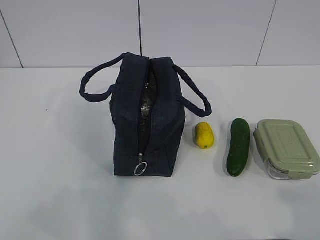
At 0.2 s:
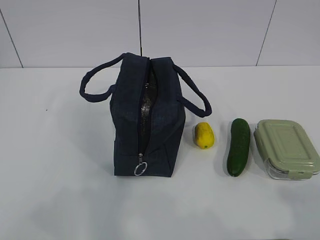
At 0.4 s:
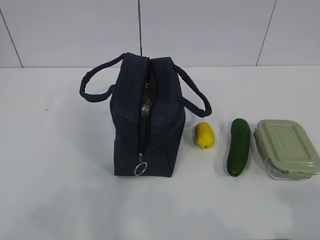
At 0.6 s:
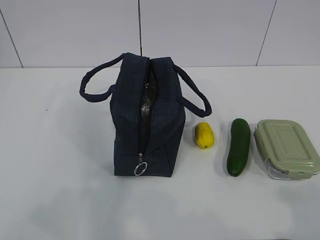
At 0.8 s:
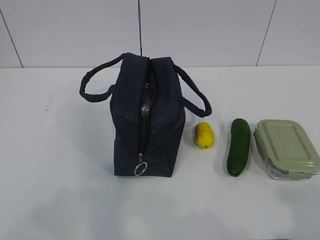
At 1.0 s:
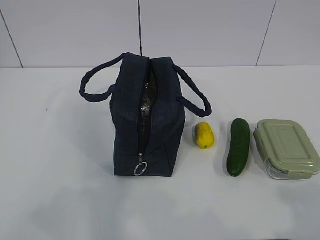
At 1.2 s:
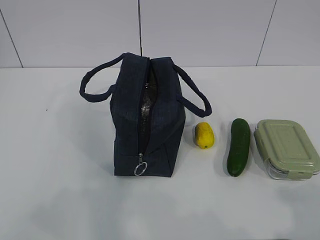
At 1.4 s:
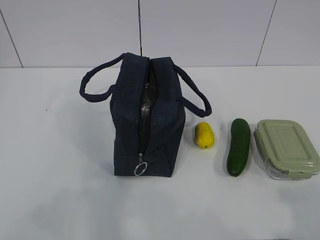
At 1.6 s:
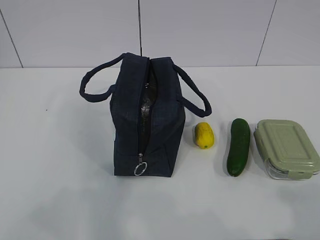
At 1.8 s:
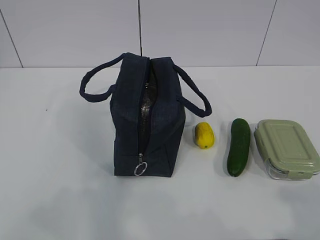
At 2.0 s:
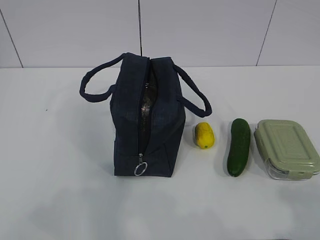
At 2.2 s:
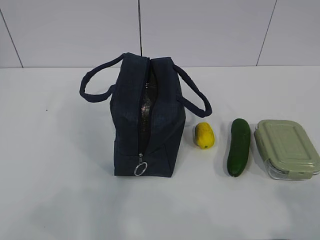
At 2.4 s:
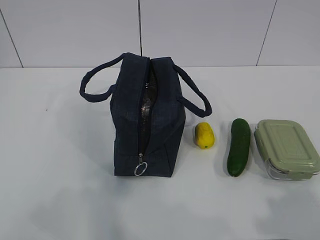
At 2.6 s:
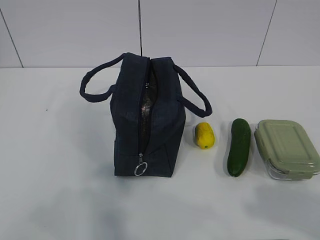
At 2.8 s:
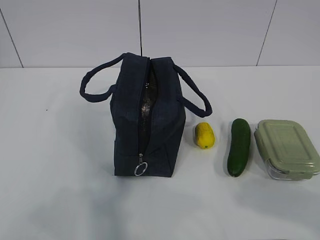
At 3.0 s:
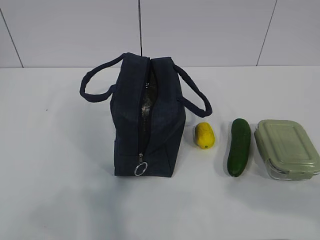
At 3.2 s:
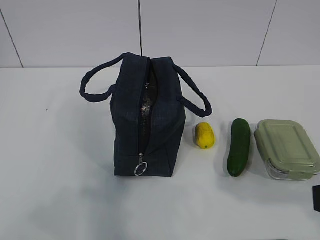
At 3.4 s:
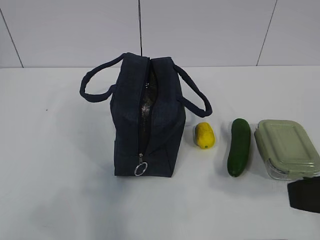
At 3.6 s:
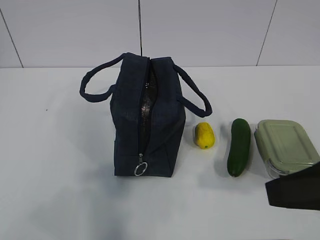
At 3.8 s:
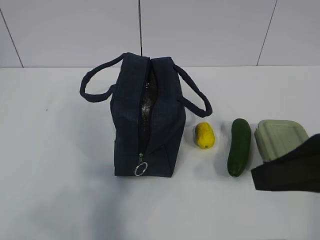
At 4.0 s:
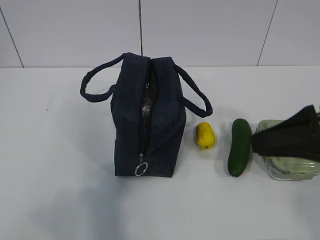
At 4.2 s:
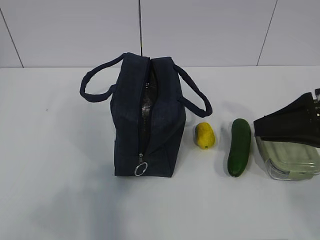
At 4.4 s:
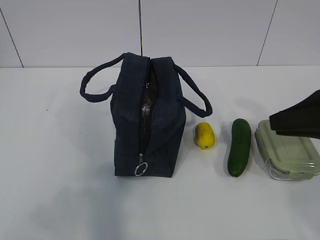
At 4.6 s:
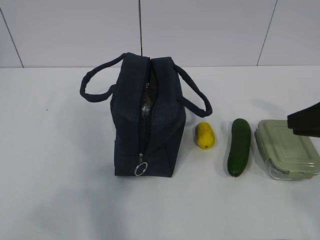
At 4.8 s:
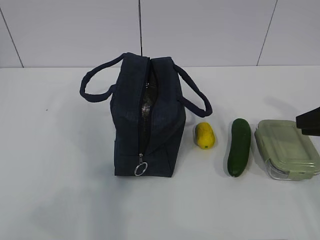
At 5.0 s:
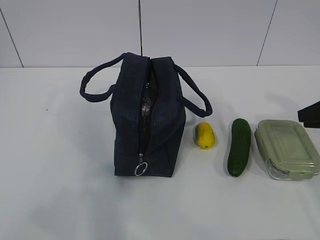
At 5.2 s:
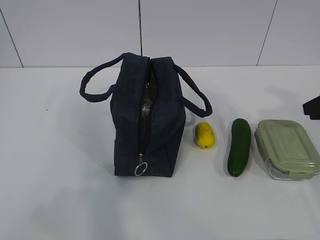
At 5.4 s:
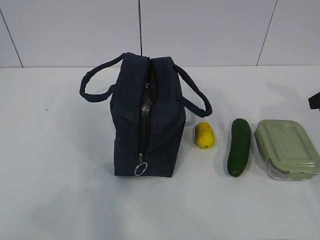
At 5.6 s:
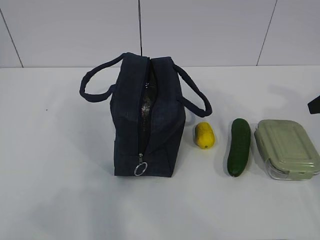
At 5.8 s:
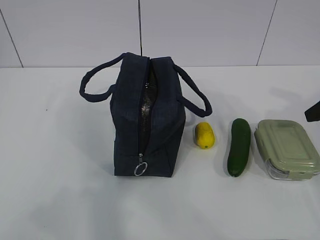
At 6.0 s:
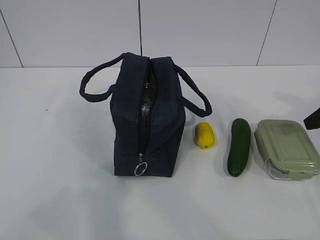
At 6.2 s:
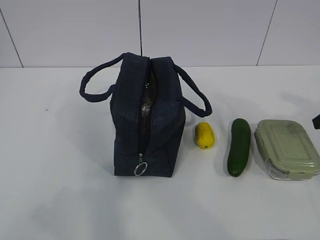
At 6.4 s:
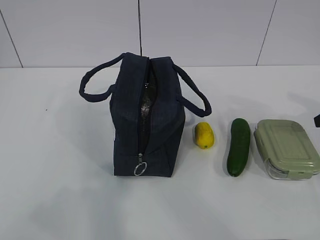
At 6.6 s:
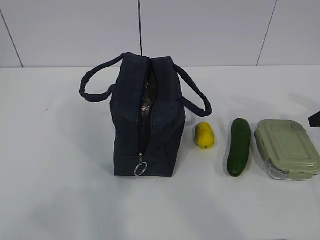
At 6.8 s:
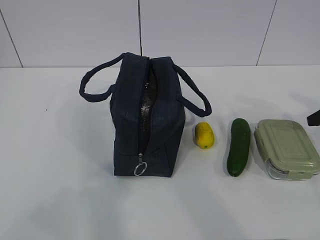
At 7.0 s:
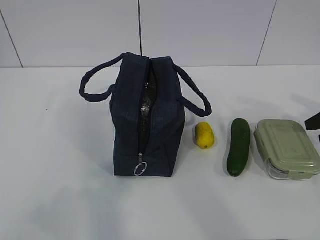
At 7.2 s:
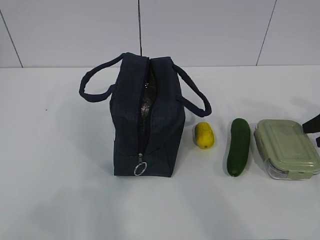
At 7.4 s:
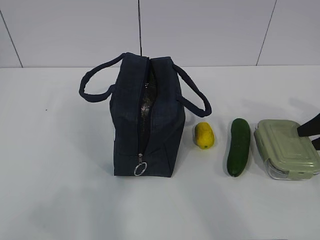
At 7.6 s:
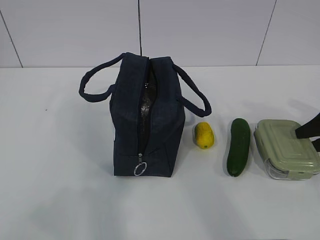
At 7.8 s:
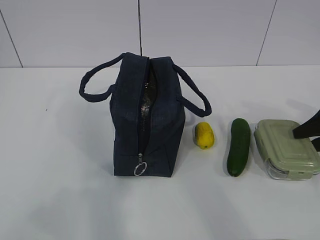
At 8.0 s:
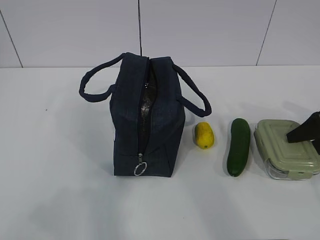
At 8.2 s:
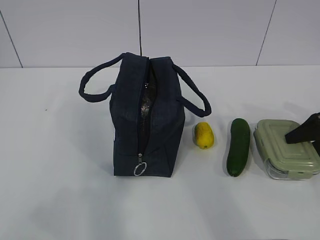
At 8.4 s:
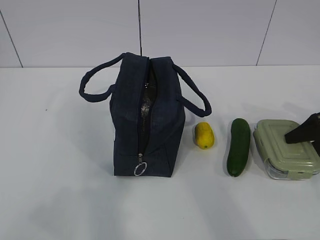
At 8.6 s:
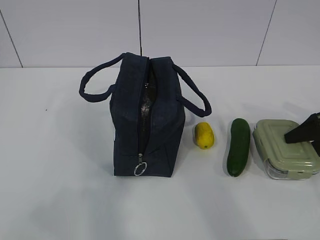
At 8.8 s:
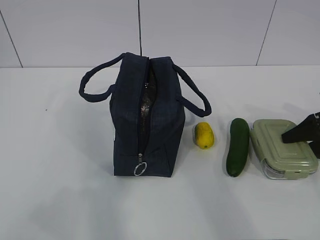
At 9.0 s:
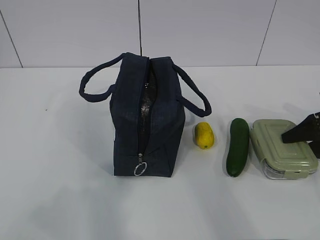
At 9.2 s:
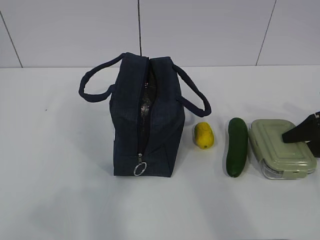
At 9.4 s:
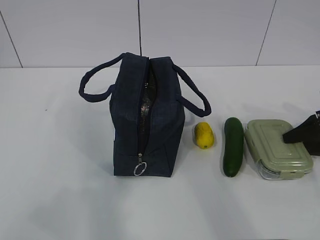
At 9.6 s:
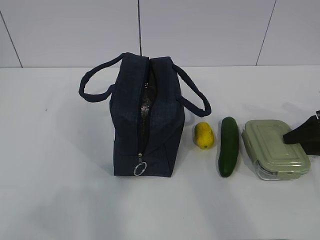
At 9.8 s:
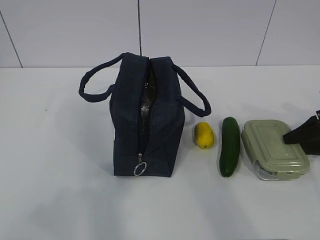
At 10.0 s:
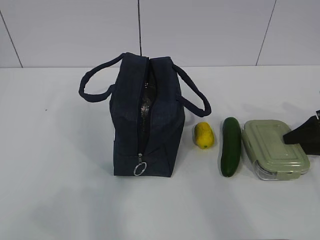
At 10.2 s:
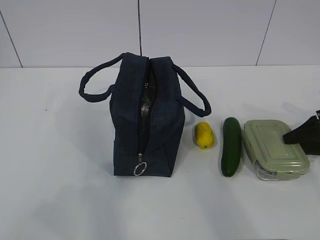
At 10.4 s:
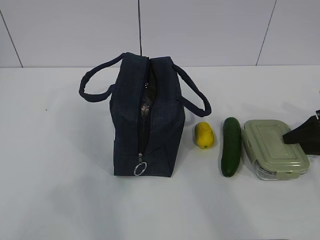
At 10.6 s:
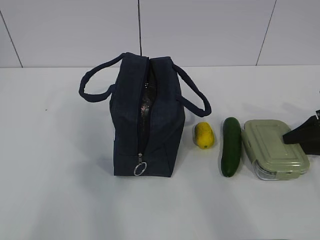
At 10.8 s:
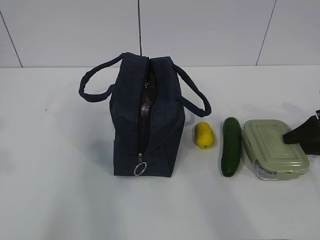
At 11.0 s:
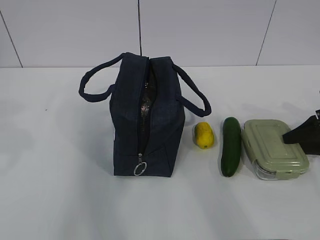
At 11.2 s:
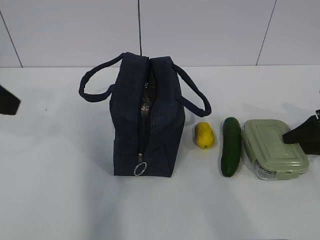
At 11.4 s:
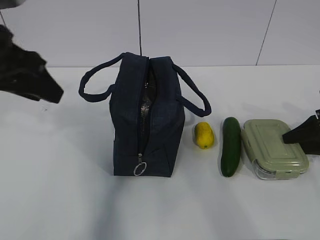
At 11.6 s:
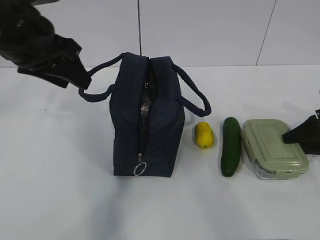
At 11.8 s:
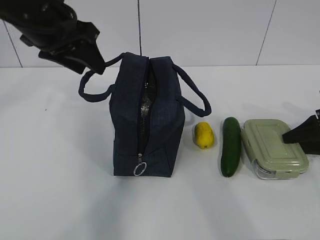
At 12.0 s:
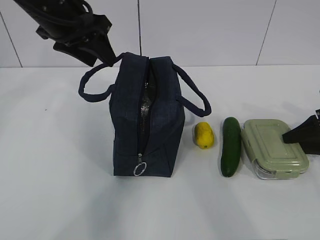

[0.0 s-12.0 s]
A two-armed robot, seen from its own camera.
1.6 to 3.0 s: The right gripper is displaced forward by approximately 5 cm.
3.0 to 4.4 s: The right gripper heads forward, covering approximately 20 cm.
4.4 to 6.0 s: The right gripper shifts roughly 15 cm to the right, forward and downward, and opens.
6.0 to 7.6 s: The right gripper goes approximately 5 cm downward.
7.6 to 9.0 s: The grippers stay close to where they were, moving slightly.
9.0 to 10.4 s: The right gripper closes.
10.4 to 12.0 s: The left gripper moves forward and to the right, some 40 cm.

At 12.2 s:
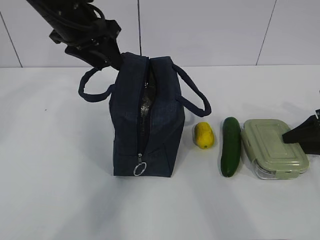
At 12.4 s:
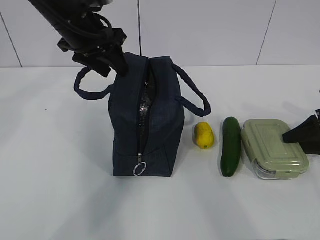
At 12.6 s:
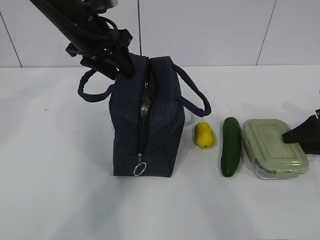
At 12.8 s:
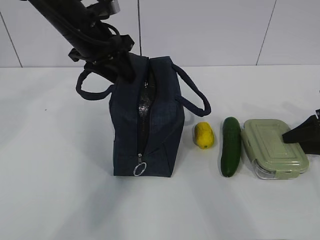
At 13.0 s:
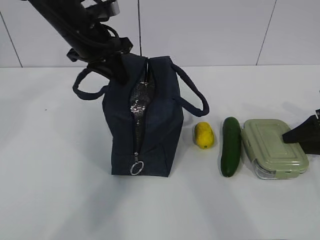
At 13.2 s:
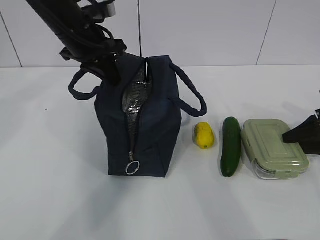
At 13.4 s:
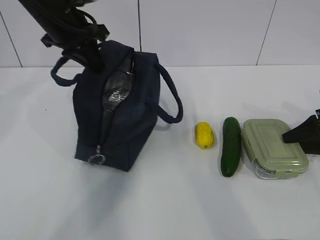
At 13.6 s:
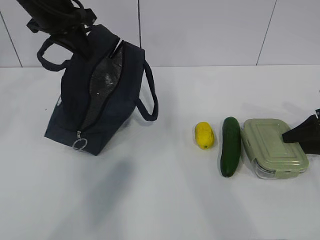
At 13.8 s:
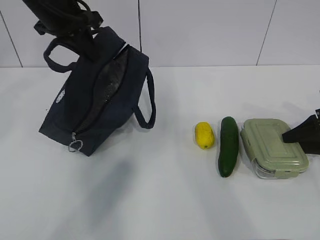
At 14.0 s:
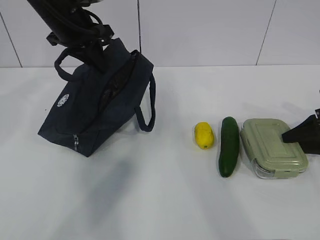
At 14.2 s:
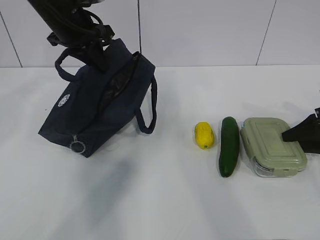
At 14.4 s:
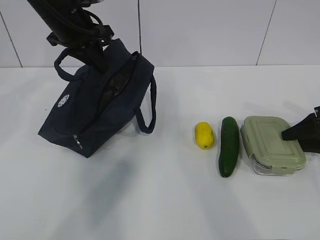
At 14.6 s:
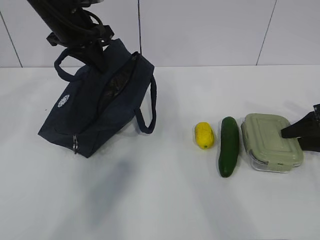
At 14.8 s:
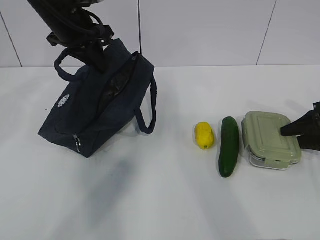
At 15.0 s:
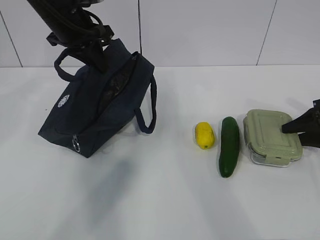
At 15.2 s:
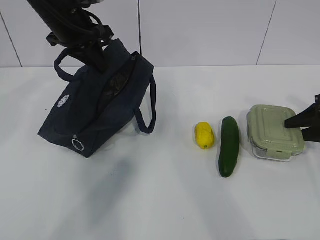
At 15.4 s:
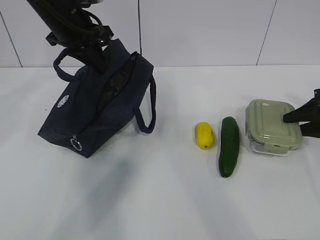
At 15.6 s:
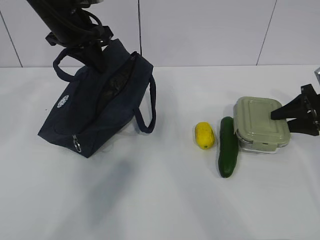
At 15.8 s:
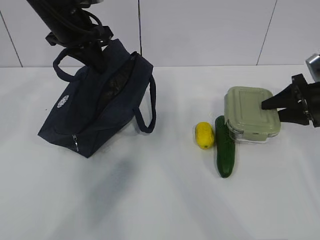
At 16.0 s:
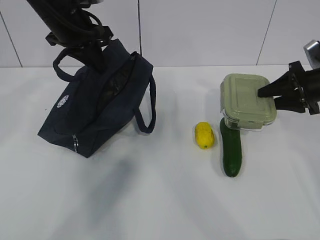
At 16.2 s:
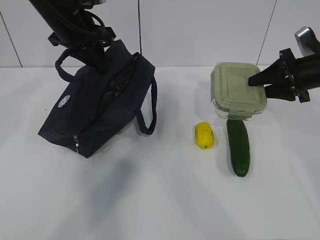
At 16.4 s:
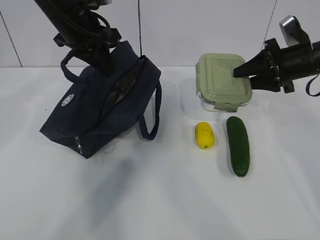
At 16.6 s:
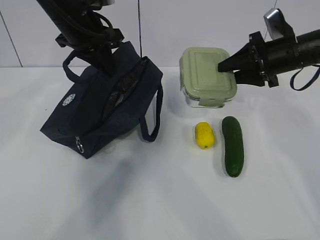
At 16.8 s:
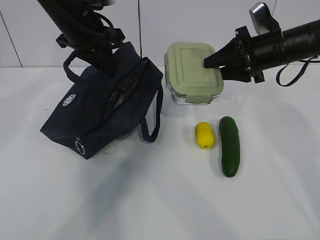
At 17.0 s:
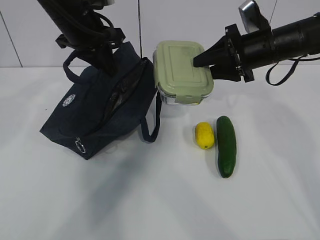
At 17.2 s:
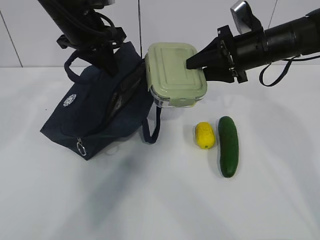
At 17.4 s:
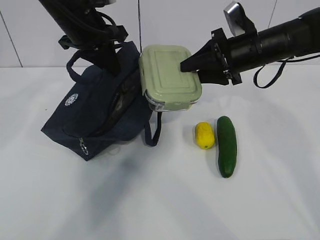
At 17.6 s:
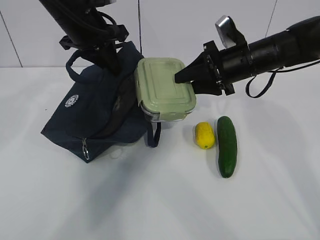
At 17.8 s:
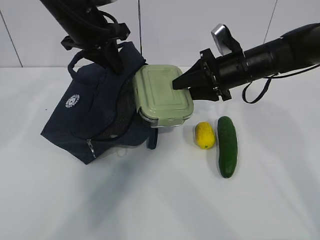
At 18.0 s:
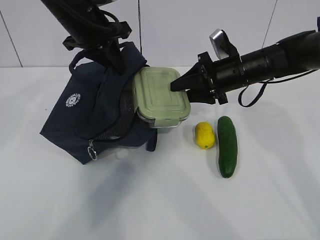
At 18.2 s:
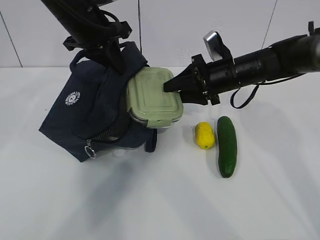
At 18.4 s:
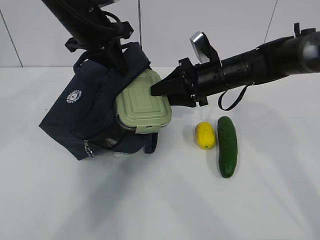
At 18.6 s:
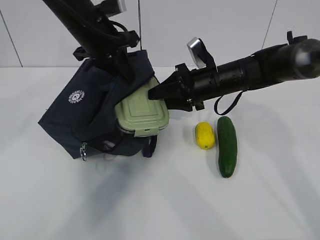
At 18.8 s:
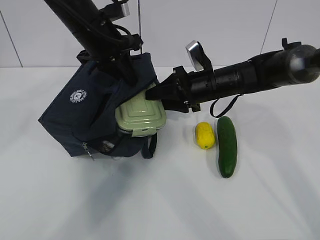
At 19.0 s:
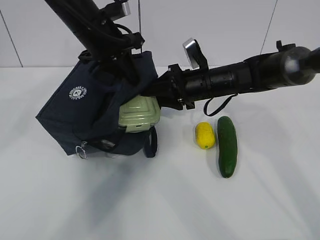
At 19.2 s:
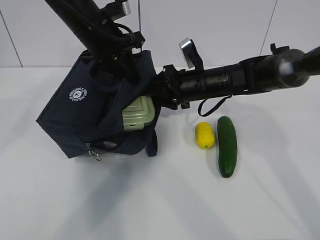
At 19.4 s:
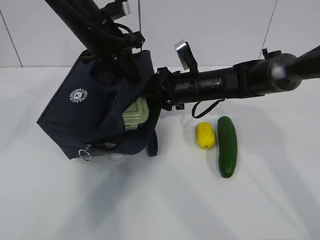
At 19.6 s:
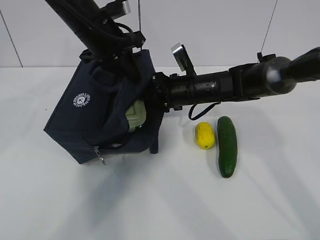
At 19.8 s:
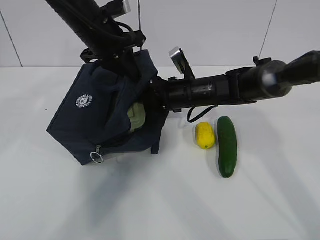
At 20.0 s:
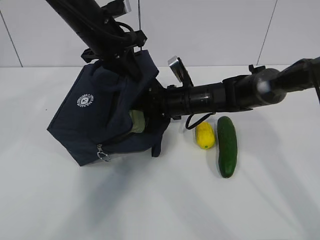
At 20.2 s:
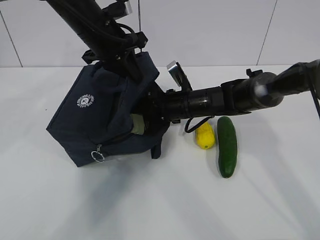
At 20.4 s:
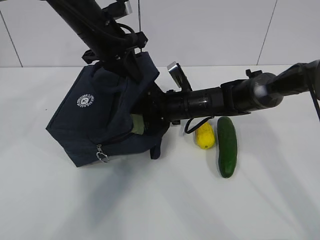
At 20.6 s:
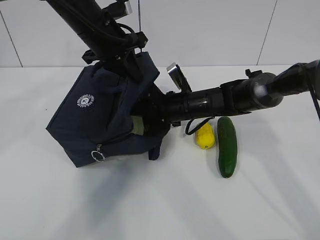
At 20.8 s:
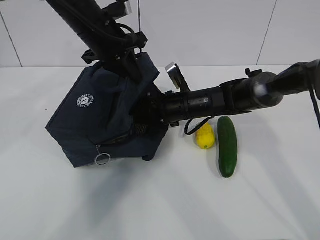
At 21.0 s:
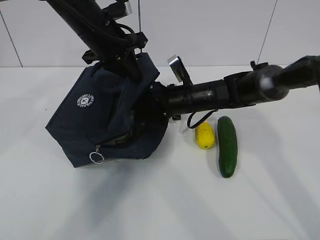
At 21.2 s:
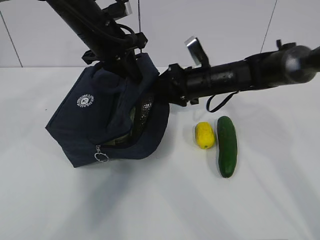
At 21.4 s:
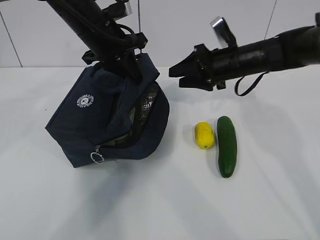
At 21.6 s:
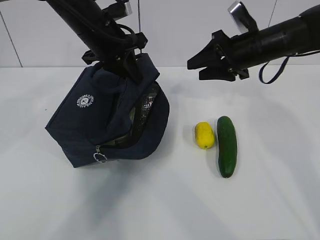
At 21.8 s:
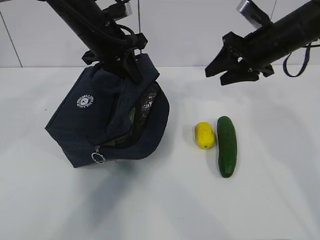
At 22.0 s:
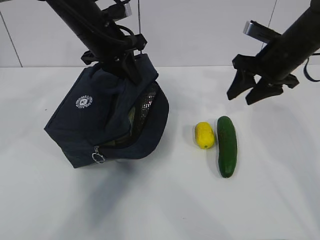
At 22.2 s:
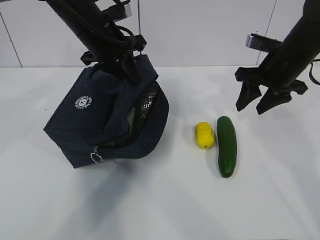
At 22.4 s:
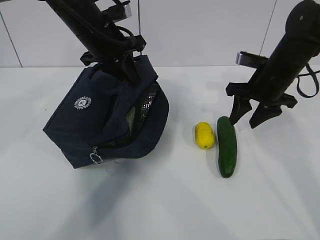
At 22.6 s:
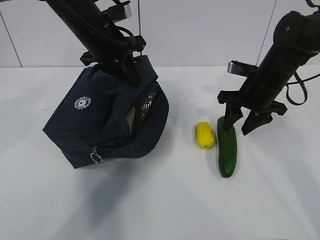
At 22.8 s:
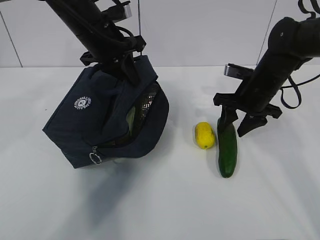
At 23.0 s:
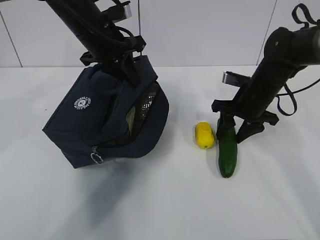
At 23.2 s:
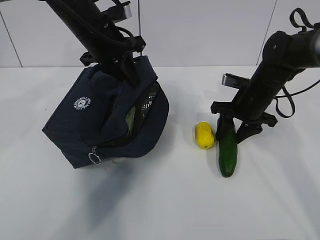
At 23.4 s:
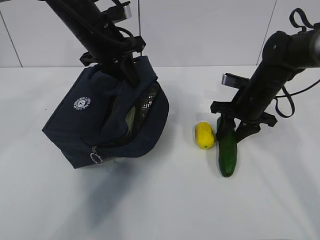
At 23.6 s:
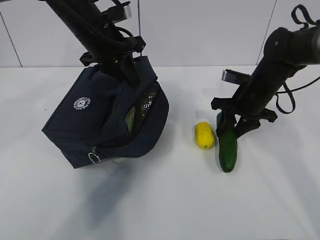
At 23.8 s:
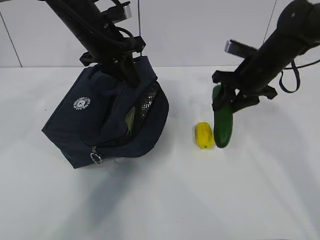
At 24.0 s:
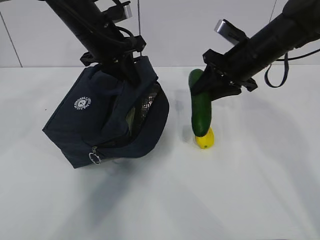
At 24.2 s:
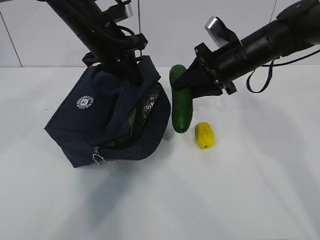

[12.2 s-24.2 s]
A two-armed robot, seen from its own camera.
Step, 12.6 to 14.4 s: Grab the lunch bag with your left hand.
Step, 14.8 to 17.2 s: Place it into the bag with your right hand.
Step, 17.4 to 19.4 s: Grab the cucumber with your right hand.
Step, 19.6 to 21.4 s: Place it into the bag with your right hand.
Step, 21.6 to 23.2 s: Grab the lemon with your right hand.
12.2 to 13.8 s: The left gripper closes.
13.8 to 15.2 s: The grippers stay close to where they were, moving slightly.
15.2 to 16.6 s: The right gripper moves to the left and upward, roughly 20 cm.
16.6 to 18.2 s: The right gripper shifts roughly 10 cm to the left.
18.2 to 19.8 s: The right gripper is displaced to the left by approximately 5 cm.
19.8 to 21.2 s: The right gripper moves some 5 cm.
21.2 to 22.6 s: The right gripper travels to the right by approximately 10 cm.
22.6 to 24.2 s: The right gripper ends up roughly 5 cm from where it was.
